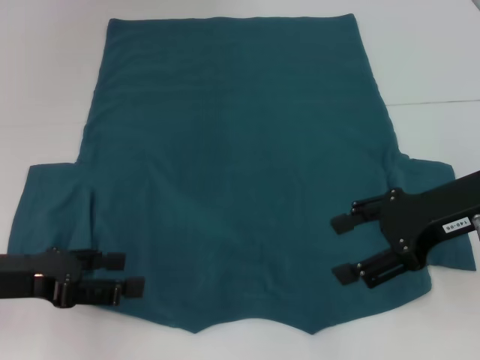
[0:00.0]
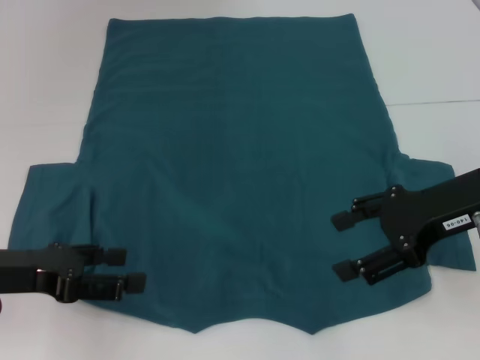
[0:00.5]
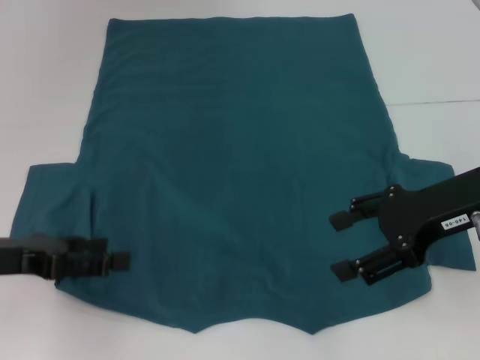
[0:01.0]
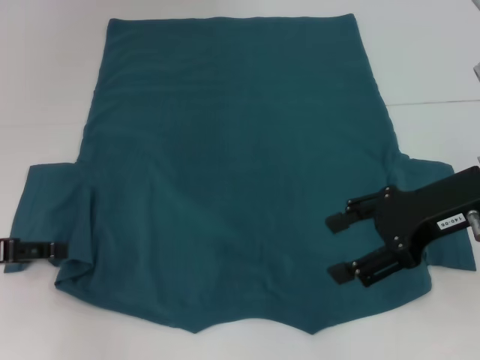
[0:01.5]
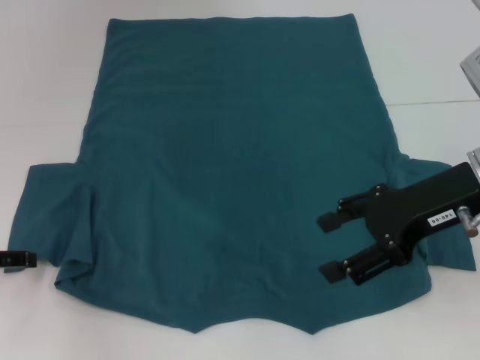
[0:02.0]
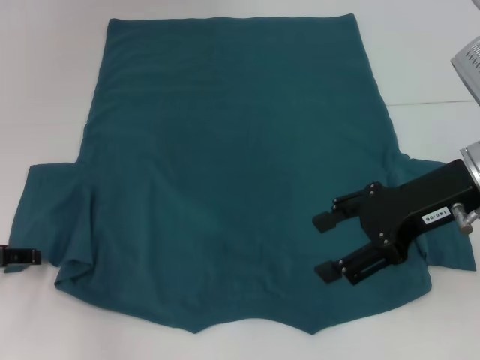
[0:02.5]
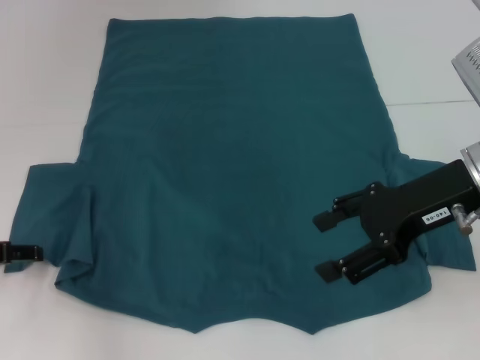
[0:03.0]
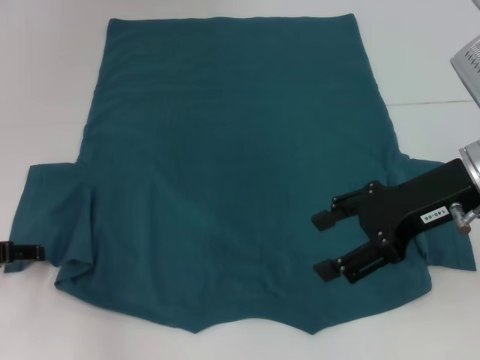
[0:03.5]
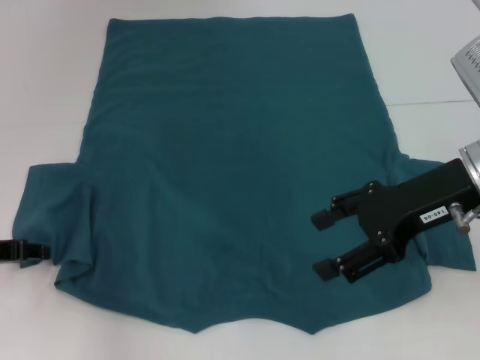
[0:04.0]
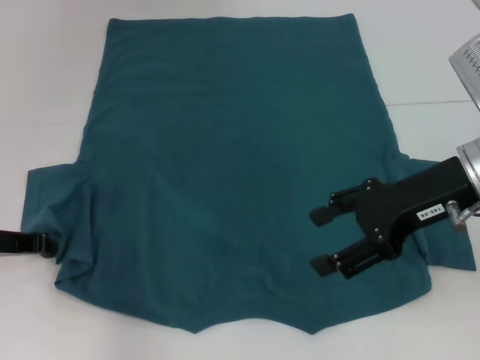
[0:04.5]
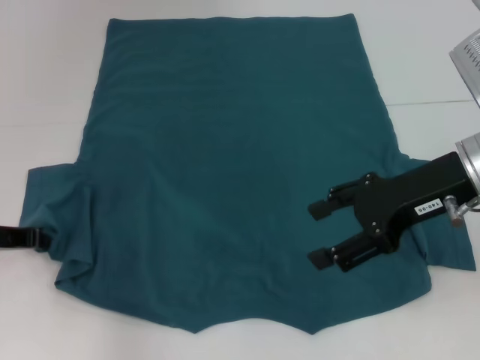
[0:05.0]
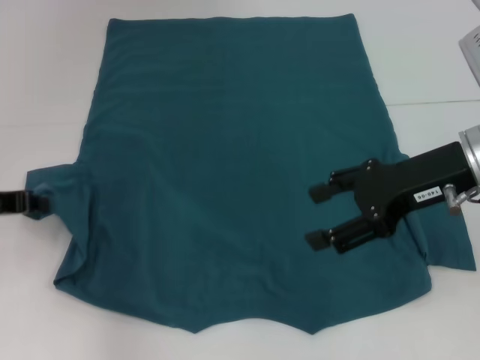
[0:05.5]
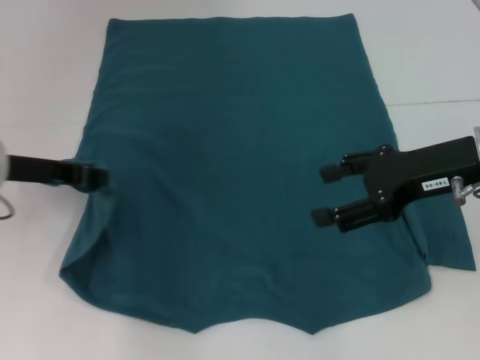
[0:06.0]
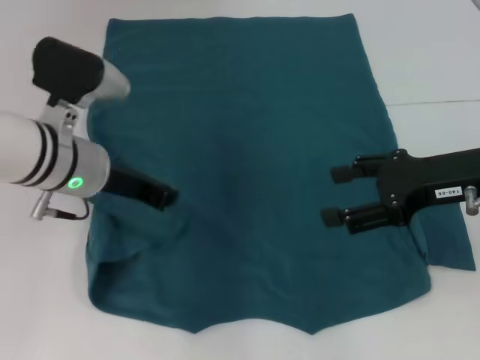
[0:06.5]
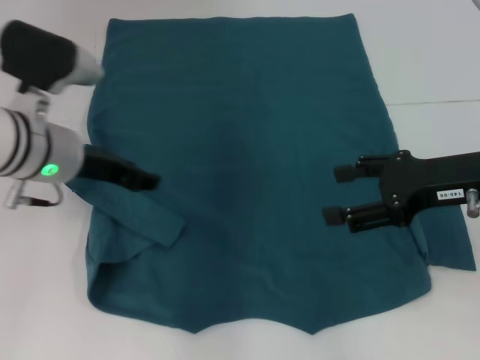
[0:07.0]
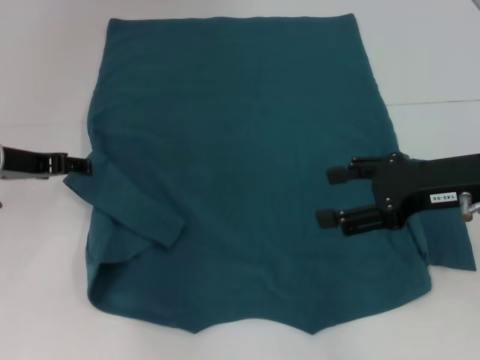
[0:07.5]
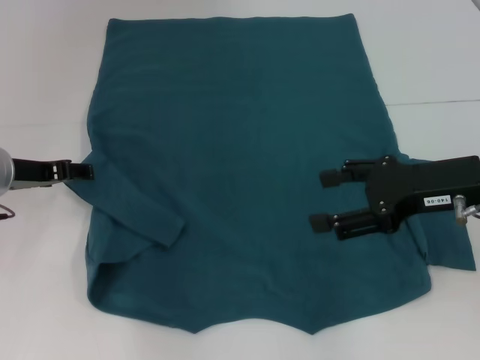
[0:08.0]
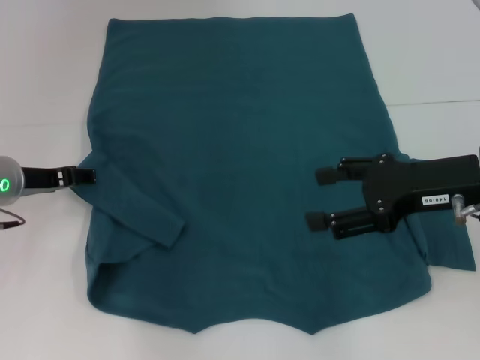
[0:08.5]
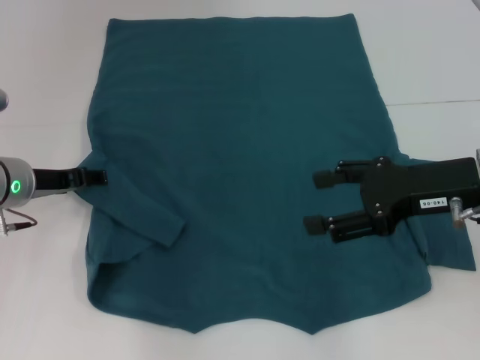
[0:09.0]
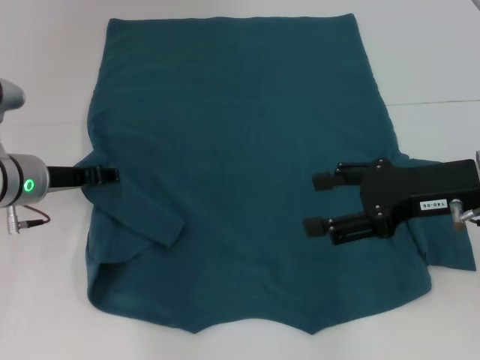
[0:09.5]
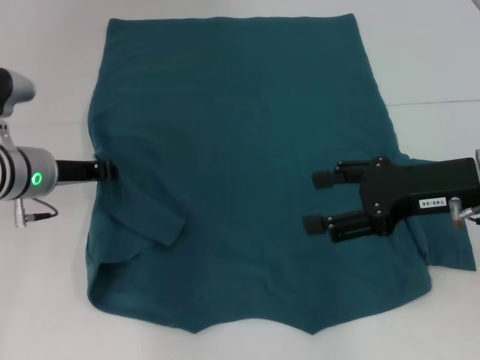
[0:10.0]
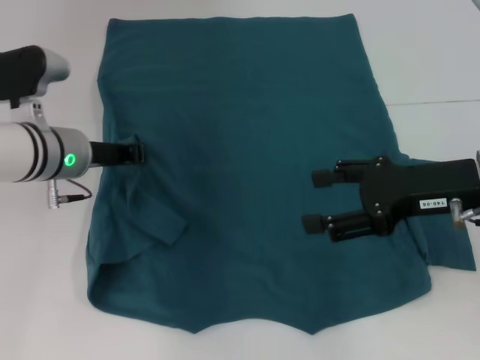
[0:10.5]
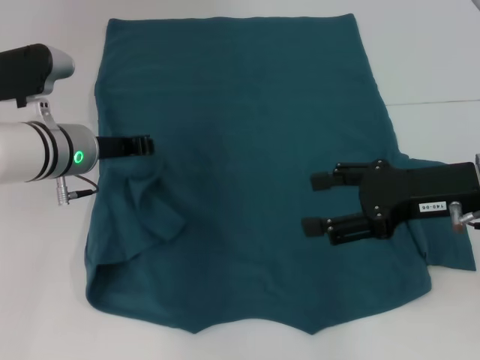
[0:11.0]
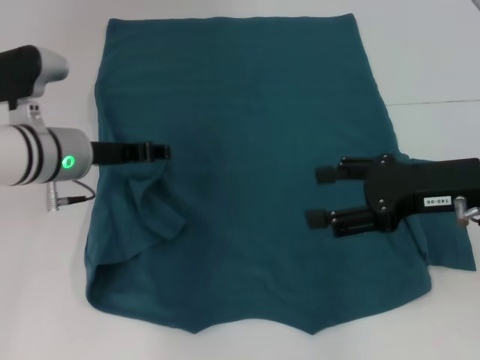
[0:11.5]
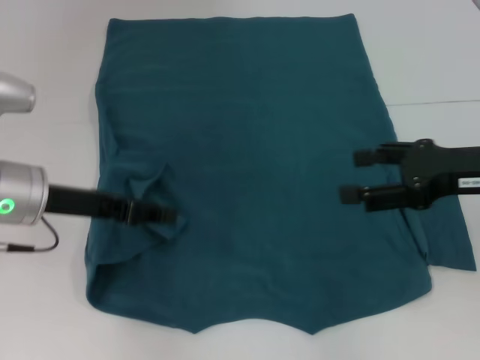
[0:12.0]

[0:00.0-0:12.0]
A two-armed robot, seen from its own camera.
Step, 0:00.0 to 0:11.0: Fold the bottom left sleeve with your left hand.
0:00.0 to 0:02.0: The left gripper shifts roughly 5 cm to the left.
0:02.0 to 0:04.0: There are only small adjustments of the grippers.
0:04.0 to 0:06.0: The left gripper shifts roughly 10 cm upward and to the right, and closes its fingers.
0:06.0 to 0:08.0: The left gripper travels to the right and back again, approximately 10 cm each way, and opens up.
0:08.0 to 0:10.0: The left gripper closes its fingers.
0:10.0 to 0:12.0: The left gripper moves roughly 5 cm, and closes and opens again.

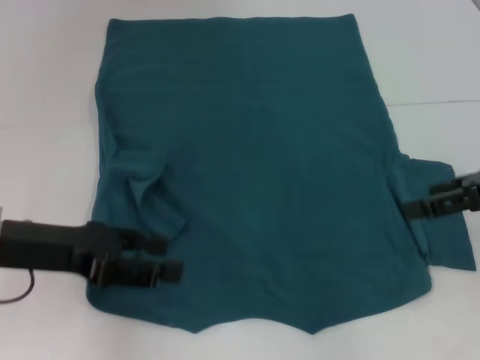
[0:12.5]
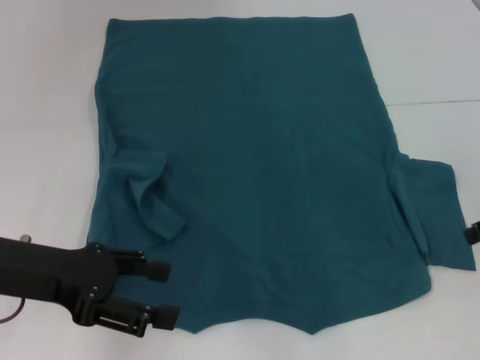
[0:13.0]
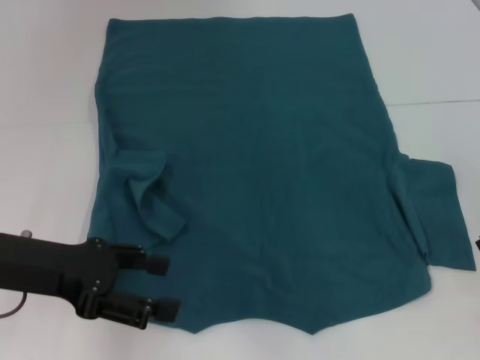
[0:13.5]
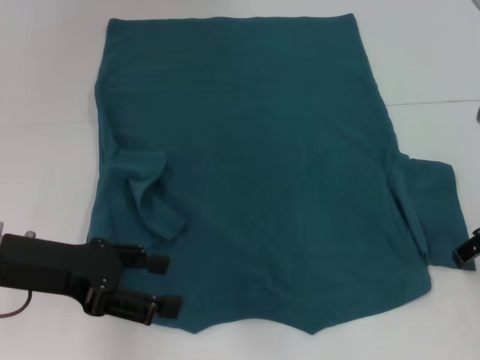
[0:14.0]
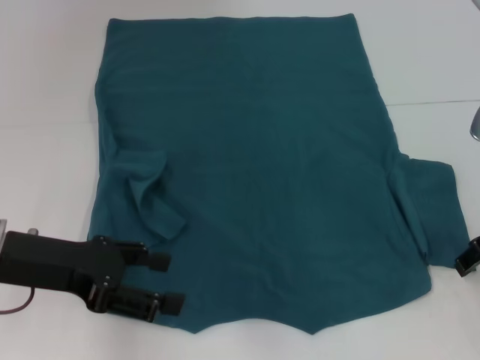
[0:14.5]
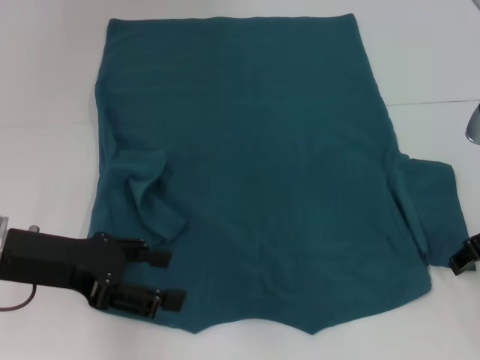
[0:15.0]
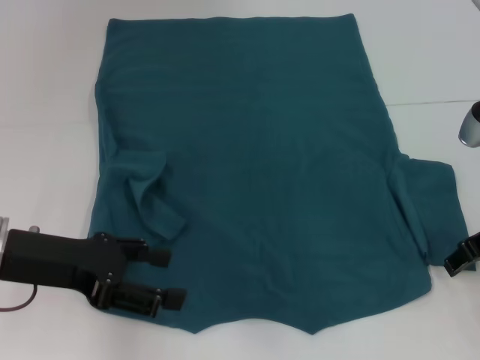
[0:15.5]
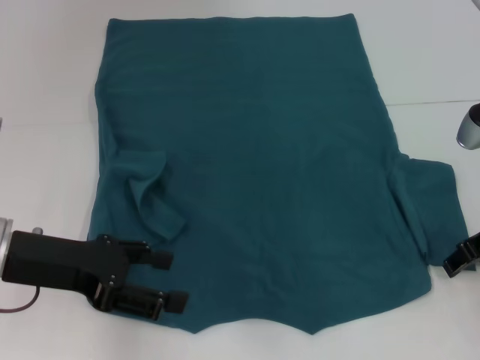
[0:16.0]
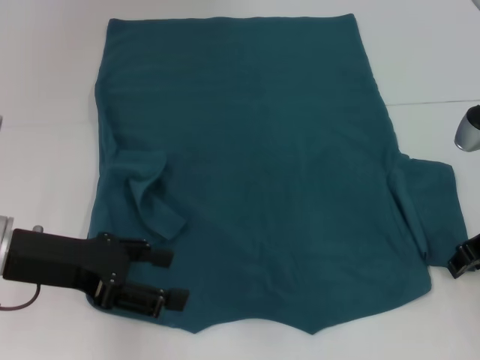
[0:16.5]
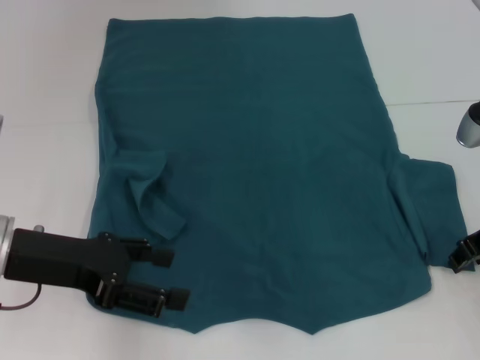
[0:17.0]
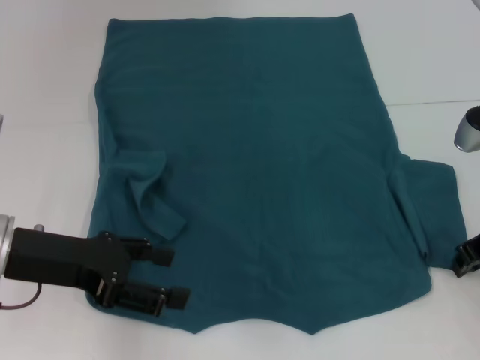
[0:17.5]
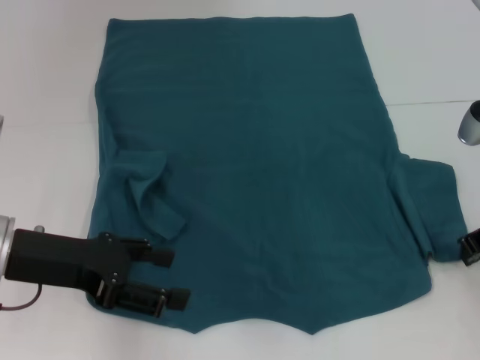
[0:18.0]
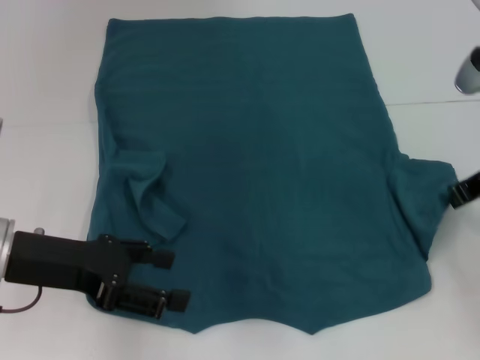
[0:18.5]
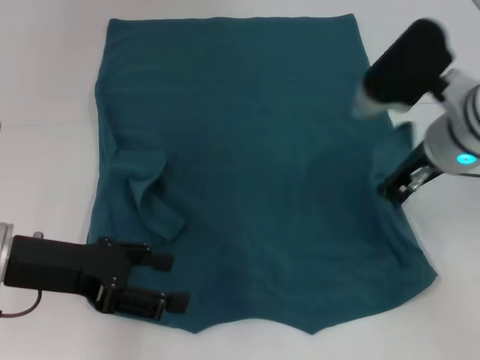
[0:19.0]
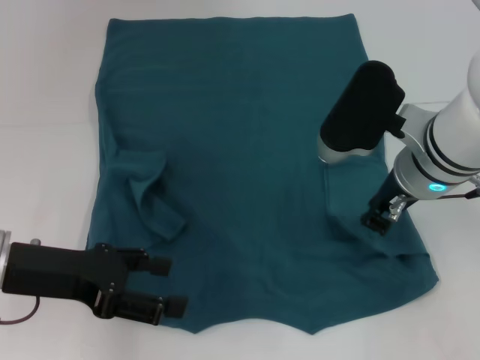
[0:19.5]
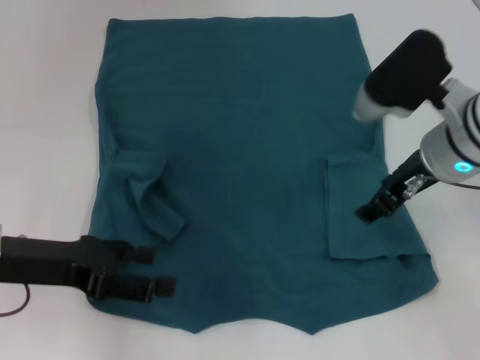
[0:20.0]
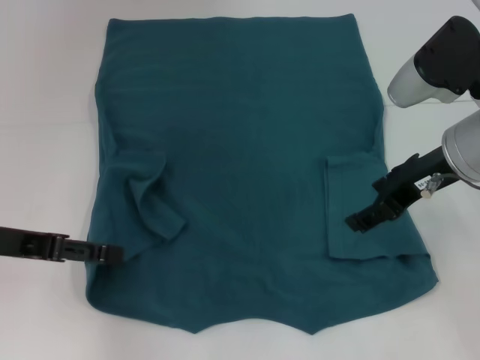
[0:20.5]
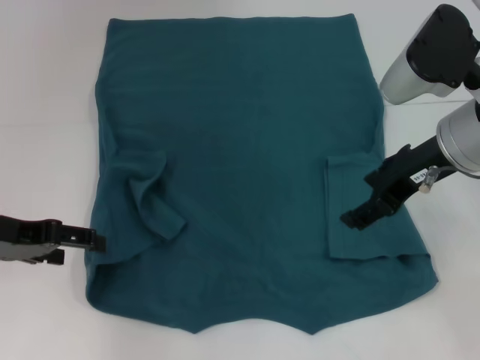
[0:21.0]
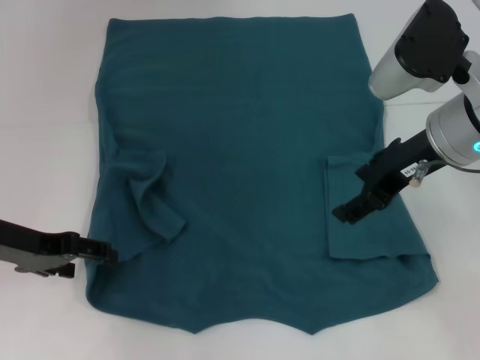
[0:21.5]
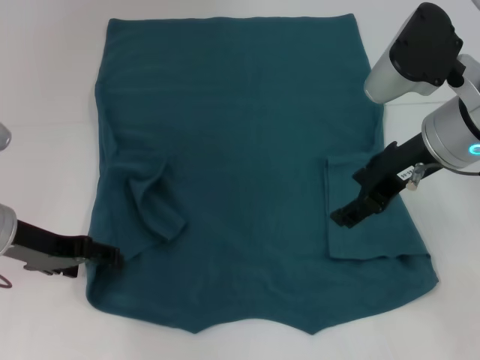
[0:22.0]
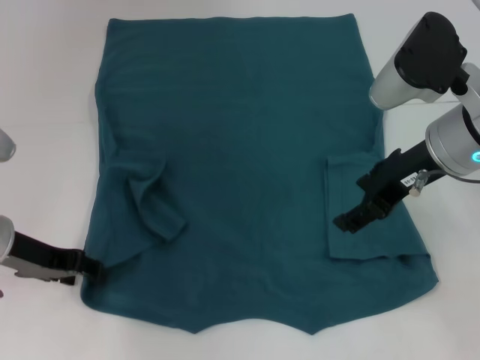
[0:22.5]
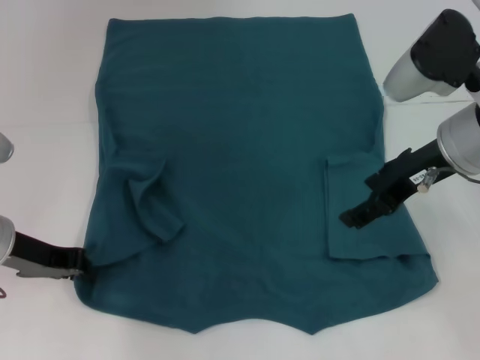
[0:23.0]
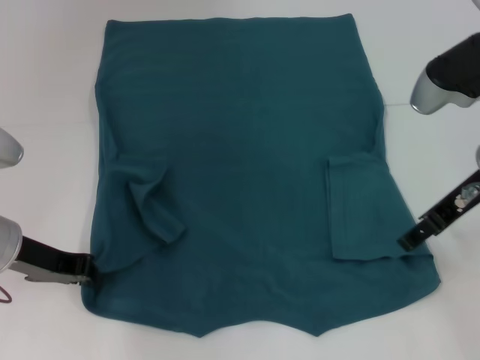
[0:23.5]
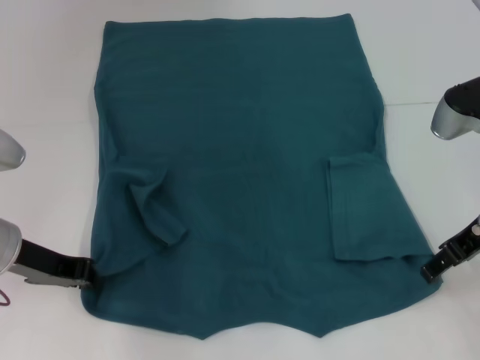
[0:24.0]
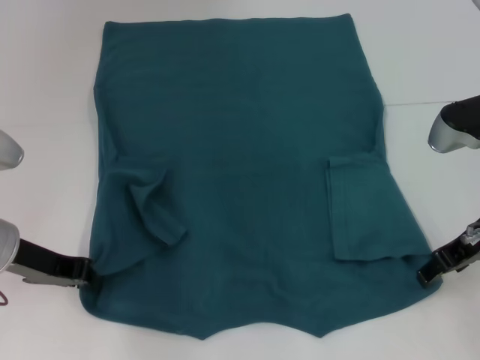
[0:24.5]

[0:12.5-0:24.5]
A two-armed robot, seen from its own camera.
Step, 0:12.5 to 0:19.5: Fold the bottom right sleeve to the right.
Step, 0:20.0 to 0:23.5: Grab the bottom left corner with your left hand.
0:12.5 to 0:14.5: The left gripper opens its fingers, while the right gripper moves downward, some 5 cm.
0:14.5 to 0:16.5: The grippers move only a little.
0:16.5 to 0:18.5: The right gripper goes some 5 cm upward, and closes its fingers.
0:18.5 to 0:20.5: The right gripper moves to the left, approximately 5 cm, and opens its fingers.
0:20.5 to 0:22.5: The left gripper ends up about 5 cm from where it was.
0:22.5 to 0:24.5: The left gripper closes its fingers. The right gripper goes approximately 10 cm to the right and downward.

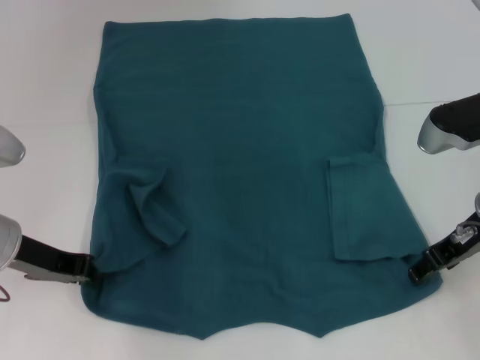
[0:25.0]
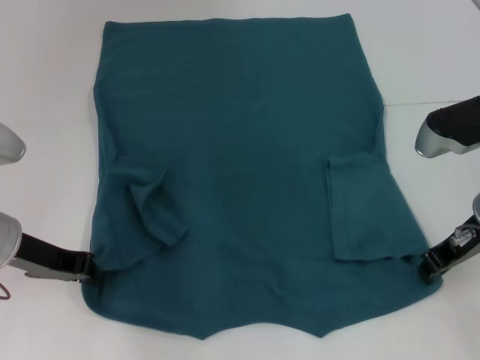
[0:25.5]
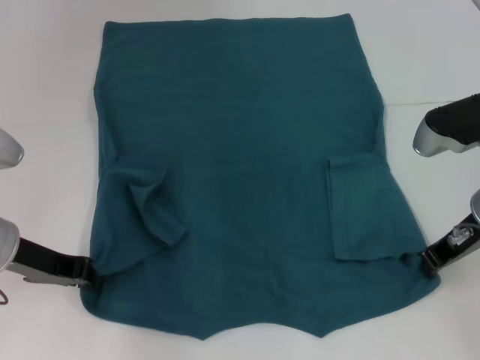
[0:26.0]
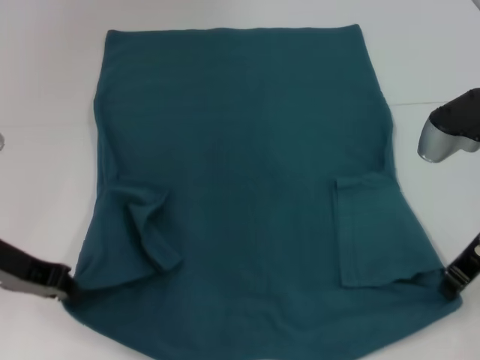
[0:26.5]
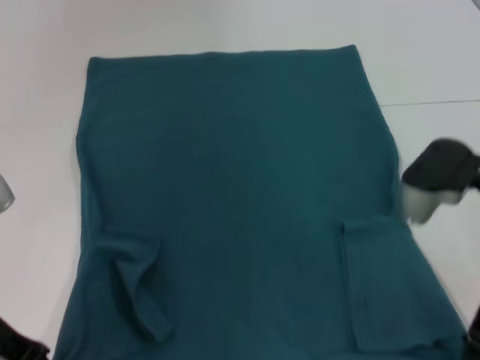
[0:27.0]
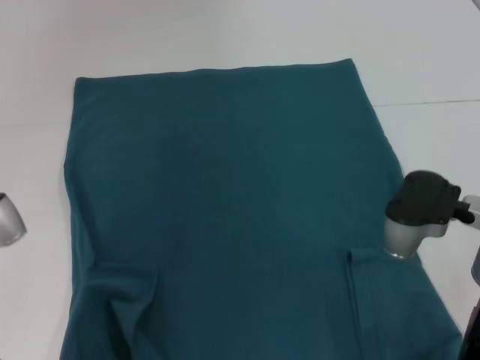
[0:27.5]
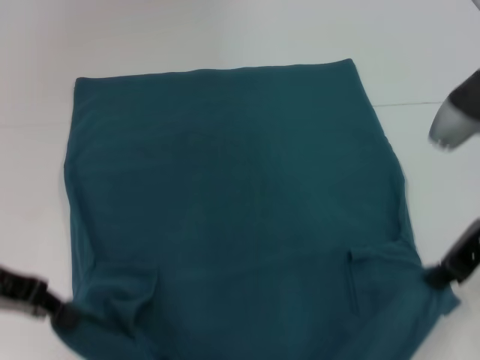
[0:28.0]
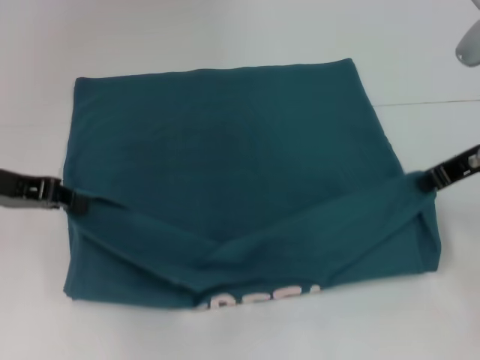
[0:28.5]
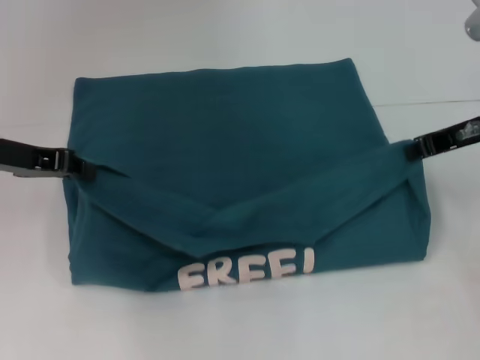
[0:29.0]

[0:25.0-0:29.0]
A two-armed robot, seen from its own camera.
0:25.0 to 0:27.0: The right gripper changes place by about 5 cm, and closes up.
0:27.0 to 0:29.0: The grippers both shift forward by some 5 cm.
